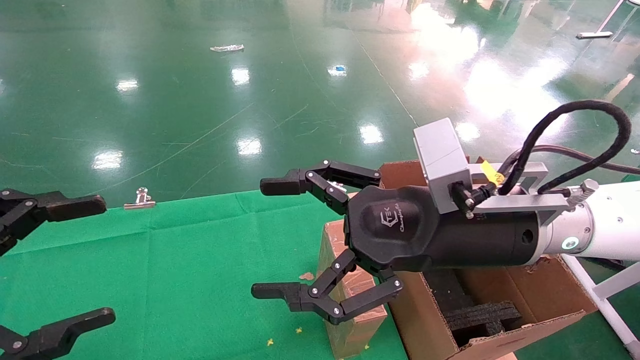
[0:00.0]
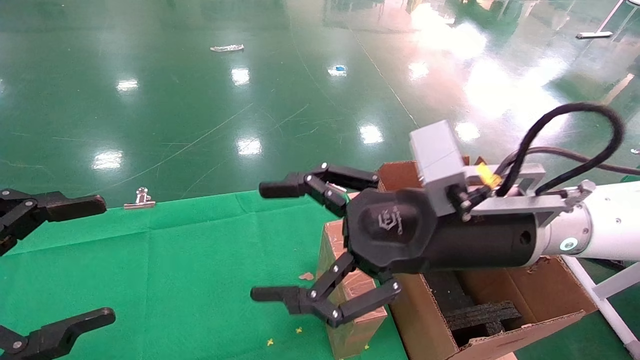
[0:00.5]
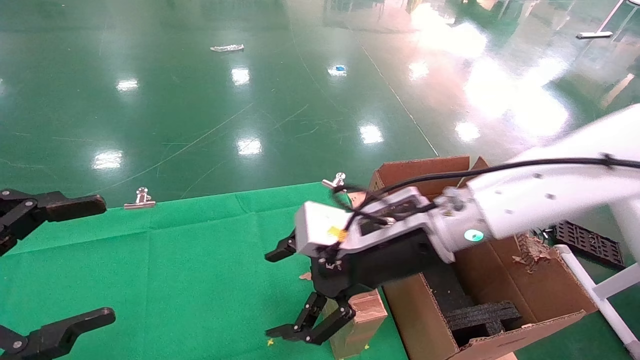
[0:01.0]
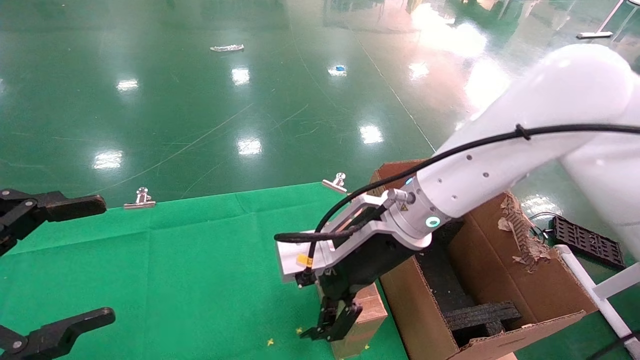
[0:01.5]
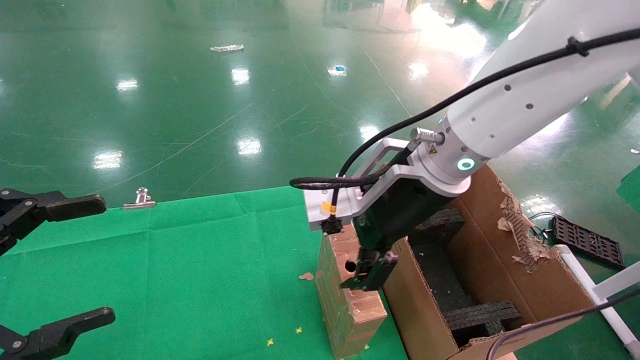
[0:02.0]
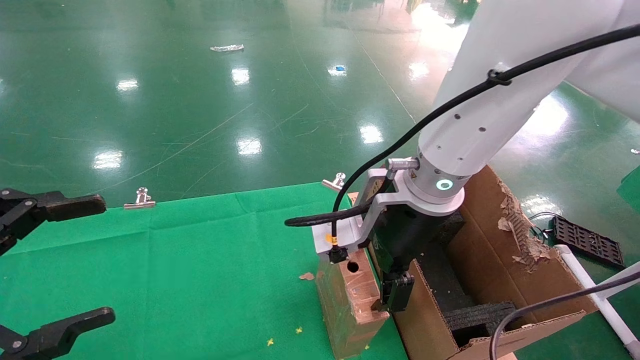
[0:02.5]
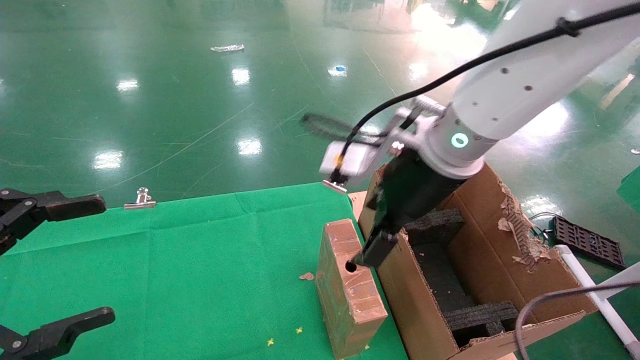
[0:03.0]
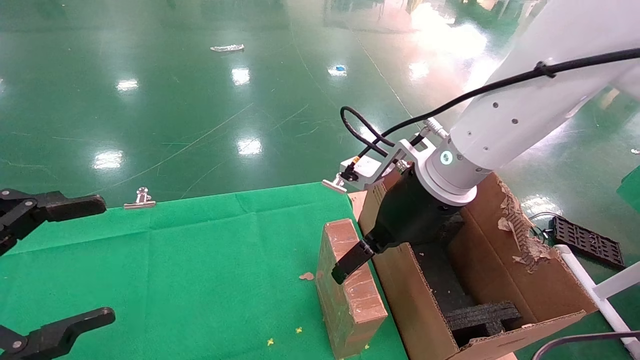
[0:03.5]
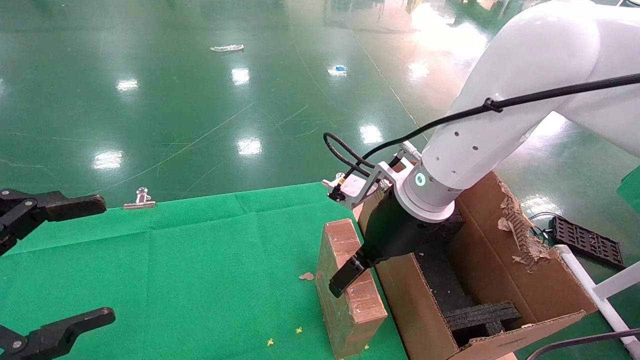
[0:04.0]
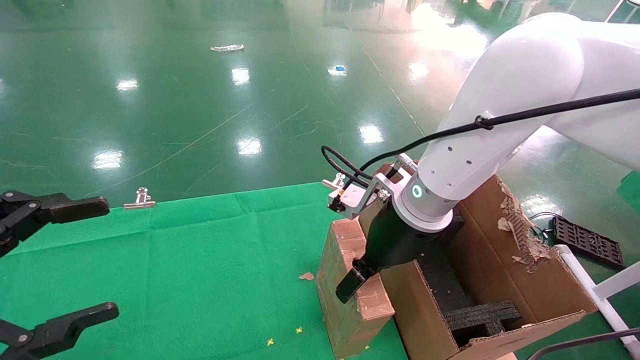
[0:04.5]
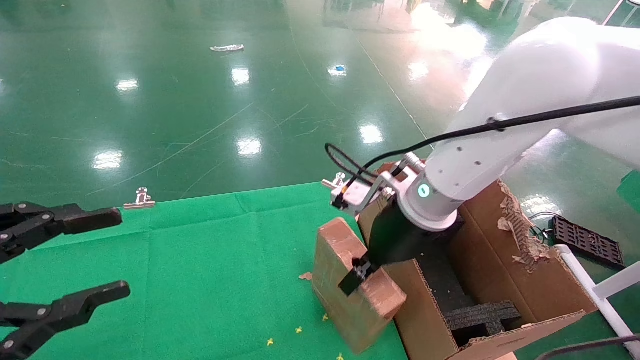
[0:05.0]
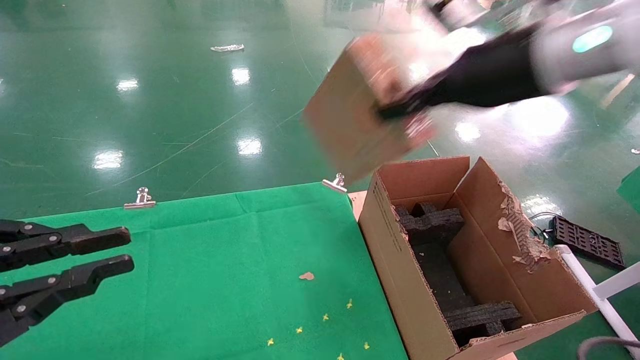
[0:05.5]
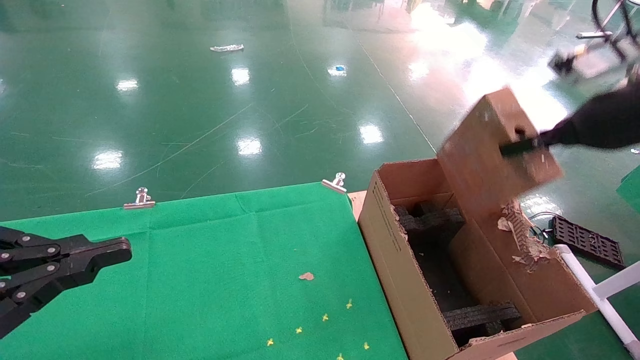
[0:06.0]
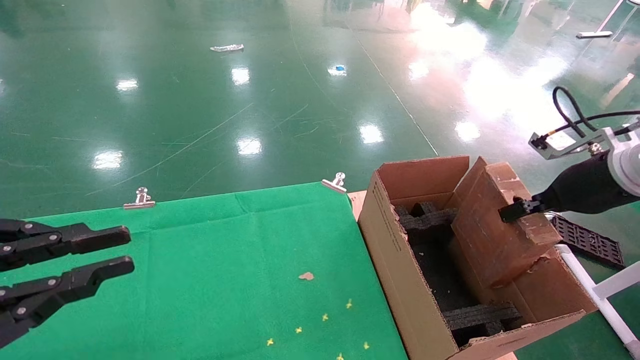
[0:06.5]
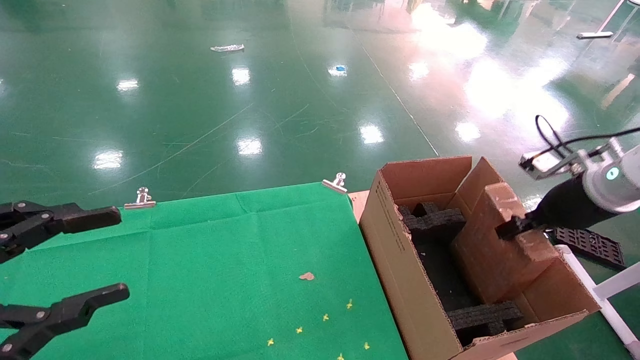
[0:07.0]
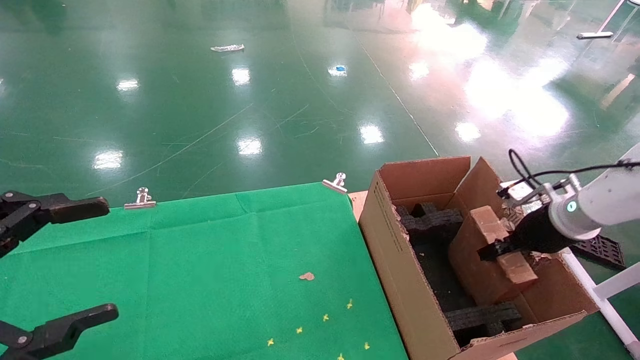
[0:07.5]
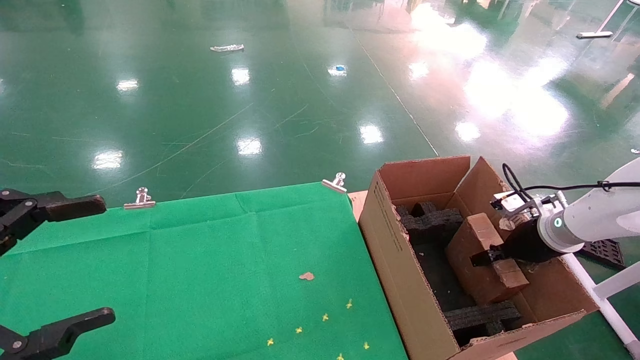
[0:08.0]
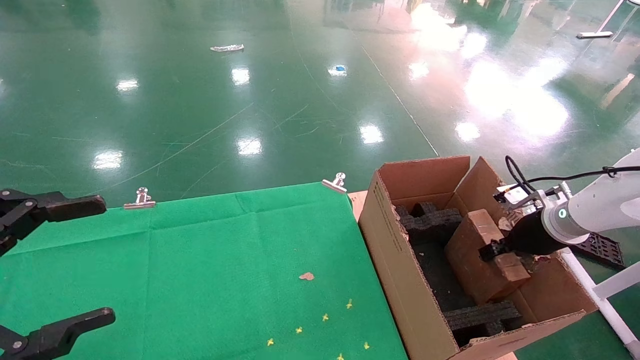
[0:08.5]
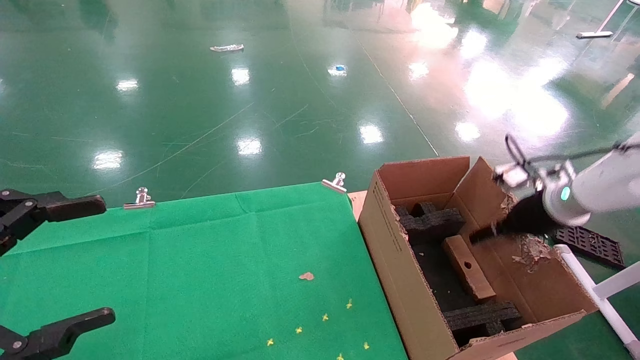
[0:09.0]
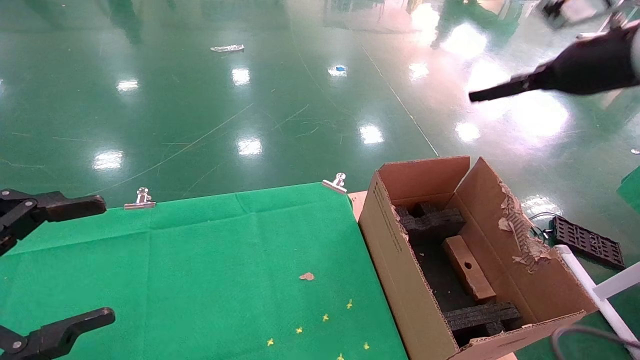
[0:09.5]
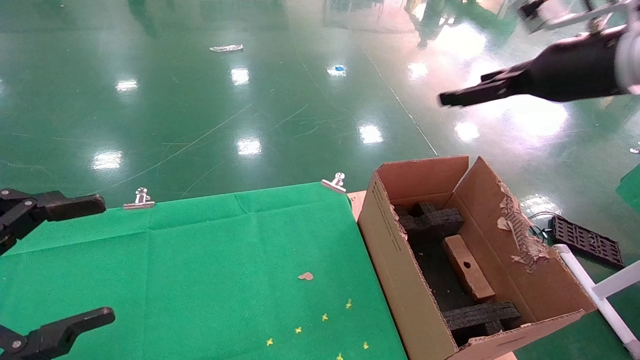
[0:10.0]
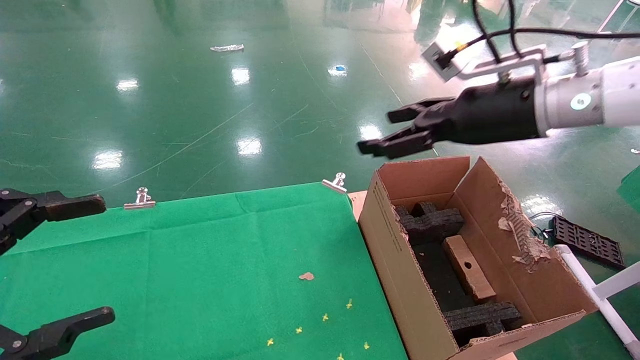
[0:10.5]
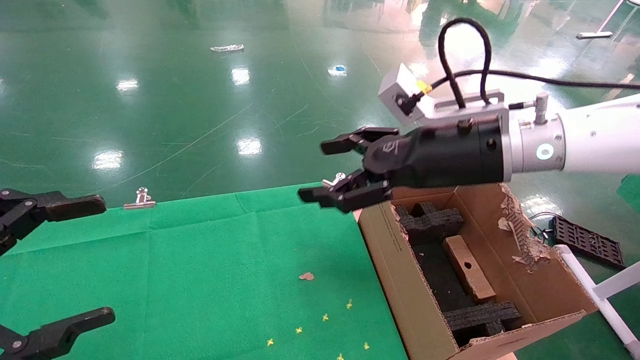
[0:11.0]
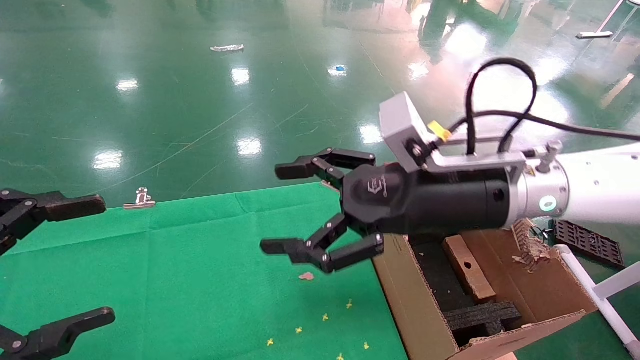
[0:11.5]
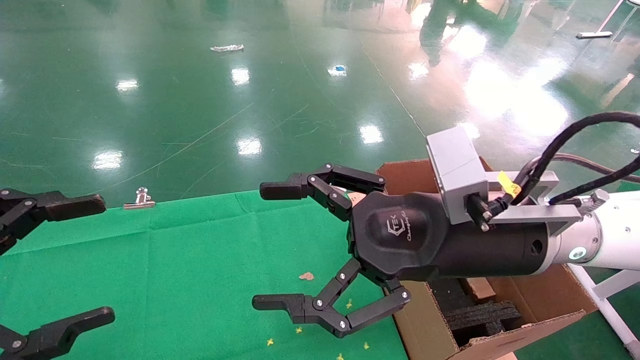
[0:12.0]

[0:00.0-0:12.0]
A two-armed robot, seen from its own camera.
Task of the whole recording: using a robotic arm to pick up a cardboard box and palace it the carton.
Step, 0:01.0 to 0:05.0: Pick up the mouse and the power cord paper box.
Step, 0:05.5 to 0:09.0: Place the mouse and the power cord paper box into the container.
0:00.0 to 0:02.0: The right gripper is displaced forward and to the left by roughly 10 cm.
0:04.0 to 0:06.0: The right gripper moves to the right, roughly 25 cm, and closes up, while the left gripper closes.
0:06.0 to 0:08.0: The right gripper moves downward and forward, about 25 cm. Meanwhile the left gripper opens its fingers.
0:08.0 to 0:10.0: The right gripper travels upward by about 25 cm, and opens up.
0:10.0 to 0:12.0: The right gripper goes approximately 25 cm to the left, downward and backward.

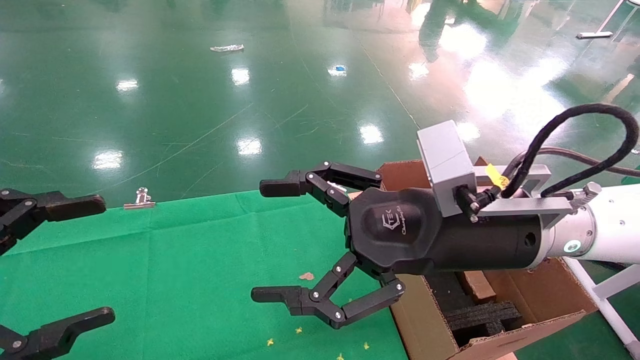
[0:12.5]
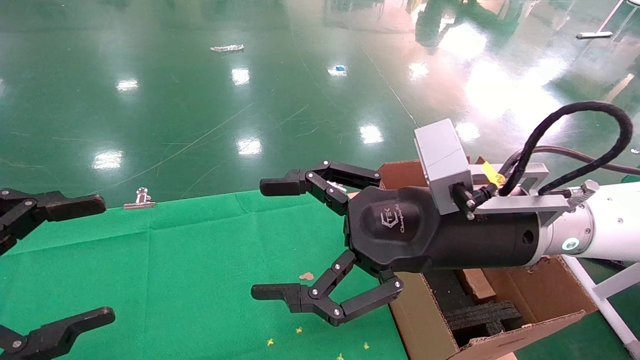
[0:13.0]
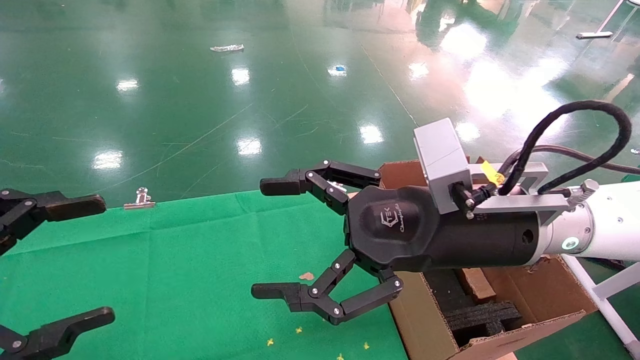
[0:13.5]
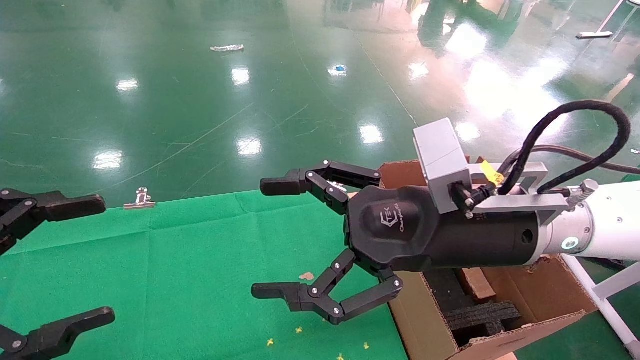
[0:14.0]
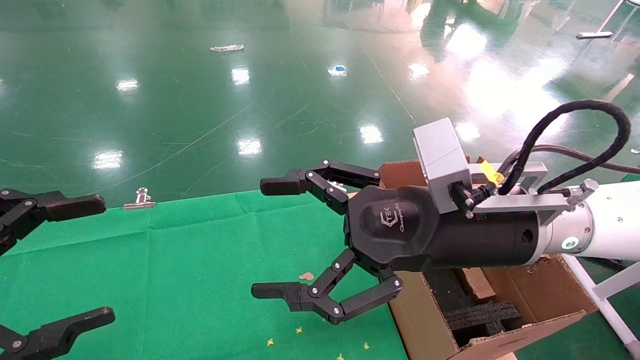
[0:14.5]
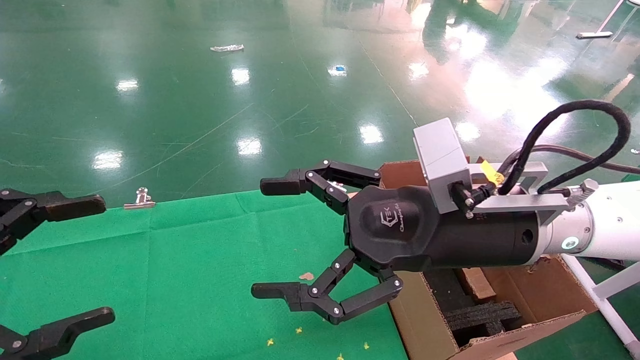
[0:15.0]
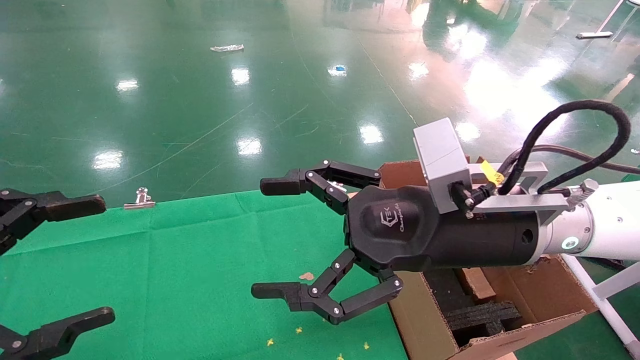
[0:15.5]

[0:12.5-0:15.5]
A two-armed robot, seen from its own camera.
Task of the whole recording: using a robotic arm to pick up a cardboard box and palace it the carton.
0:12.5 to 0:15.5: Both grippers stay about where they are.
